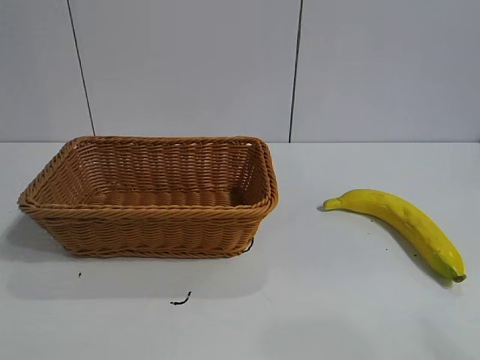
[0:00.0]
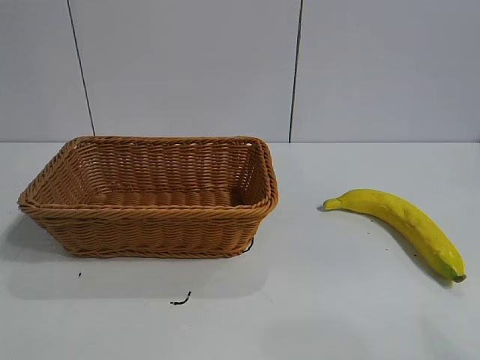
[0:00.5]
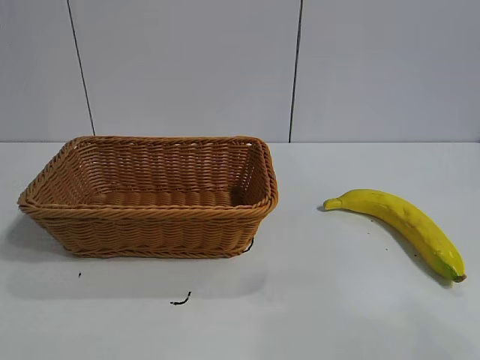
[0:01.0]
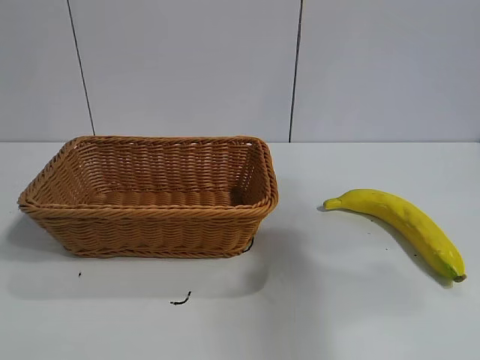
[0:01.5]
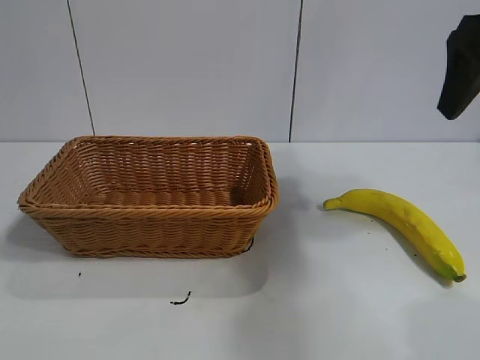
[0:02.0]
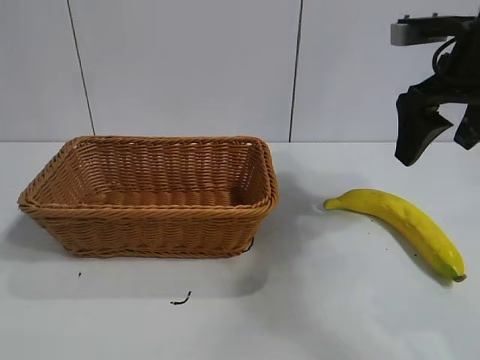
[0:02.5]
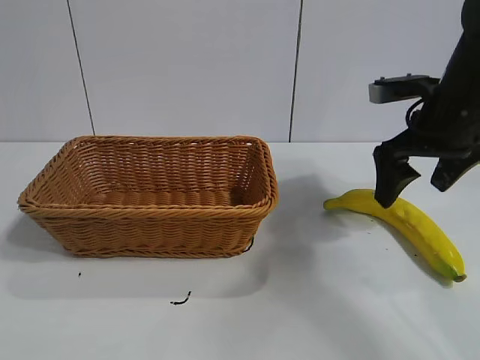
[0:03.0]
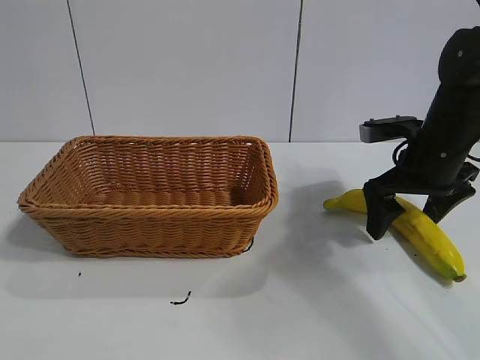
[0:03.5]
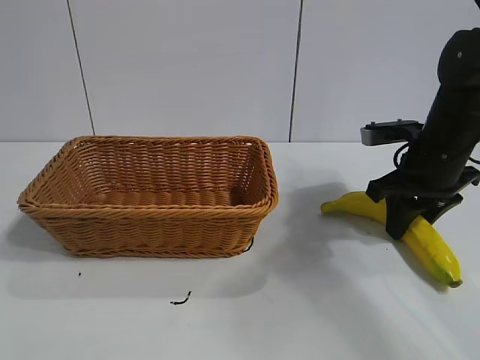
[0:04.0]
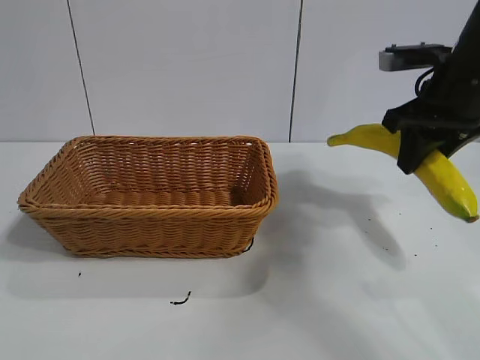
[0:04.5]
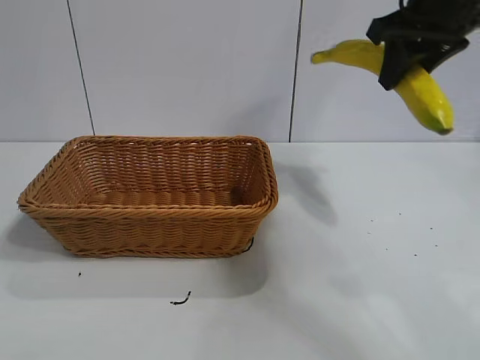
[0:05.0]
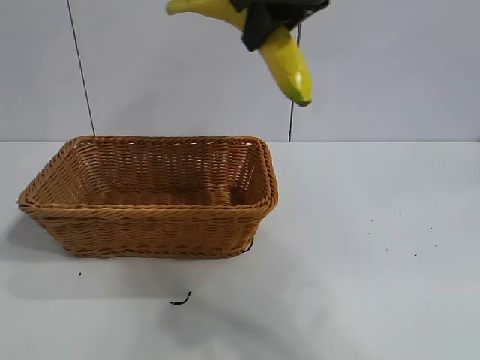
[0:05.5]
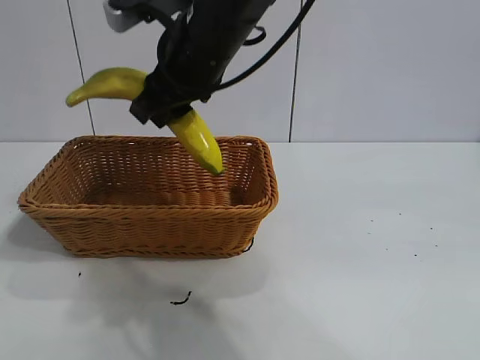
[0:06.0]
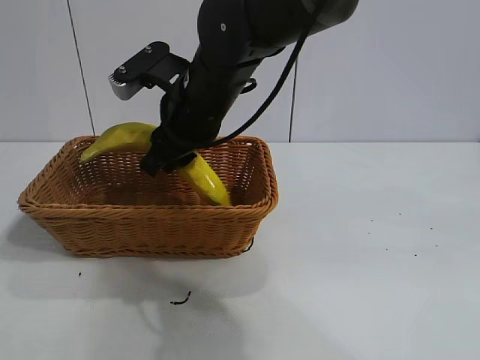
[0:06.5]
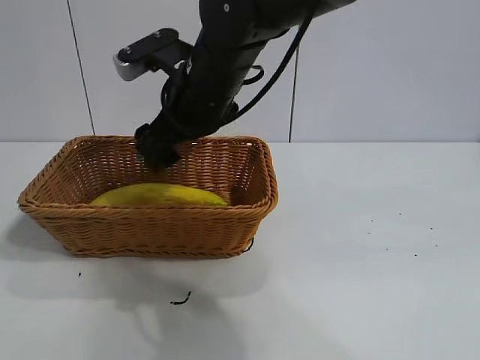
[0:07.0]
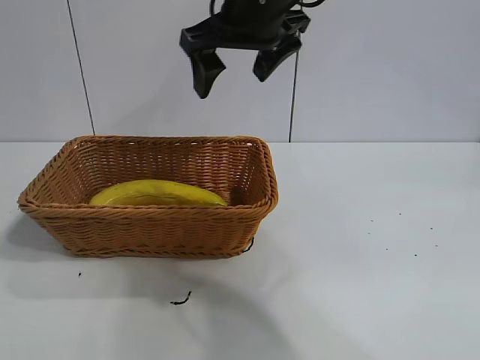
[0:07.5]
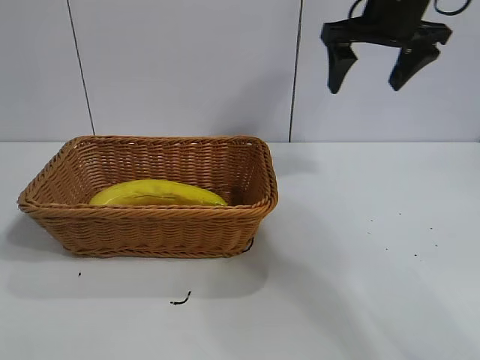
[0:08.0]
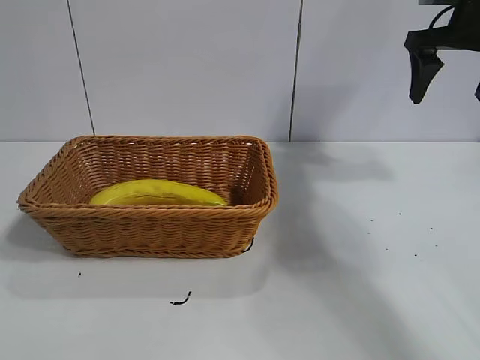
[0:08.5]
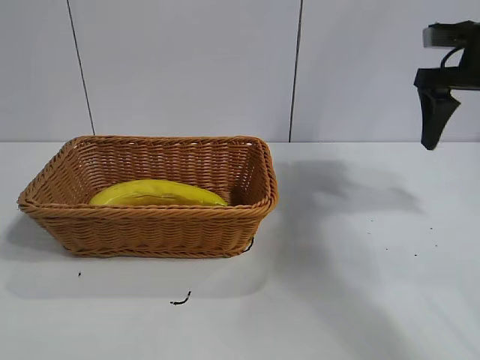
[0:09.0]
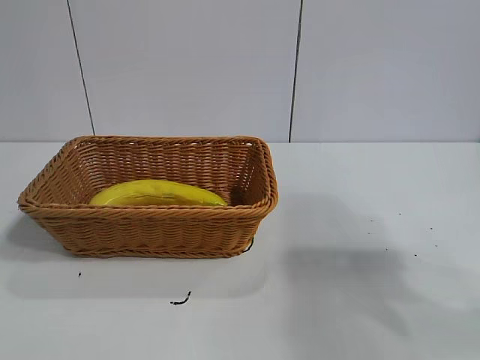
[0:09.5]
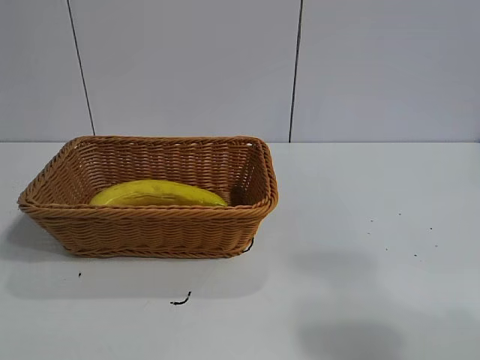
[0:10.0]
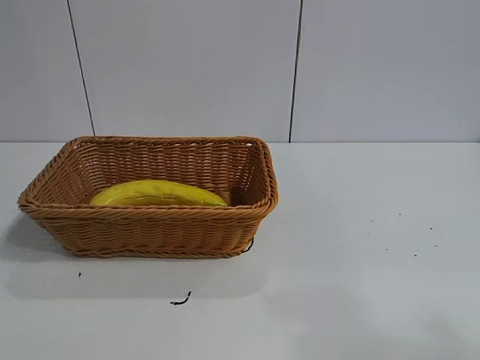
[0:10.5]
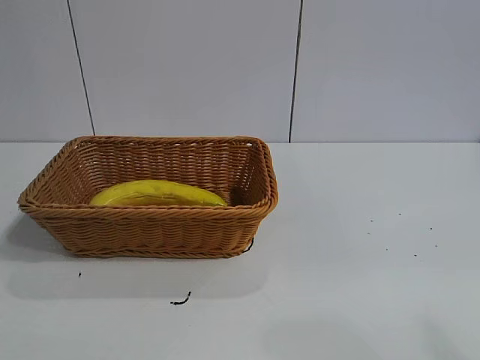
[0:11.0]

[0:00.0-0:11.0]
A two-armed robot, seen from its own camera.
Task of the whole recording: pick up the banana and put it into the basket.
Step, 0:02.0 to 0:04.0: Grasp the banana with right gripper.
Step, 0:04.5 to 0:06.5: Place the banana in the basket with right gripper.
